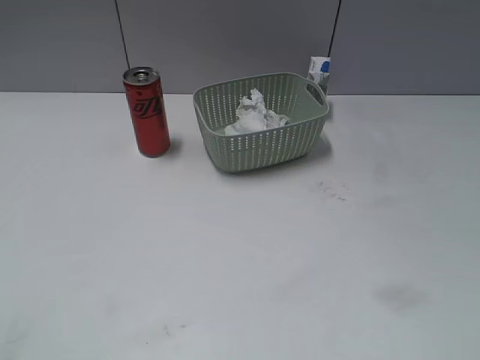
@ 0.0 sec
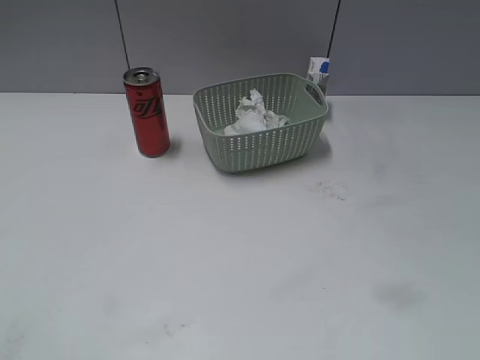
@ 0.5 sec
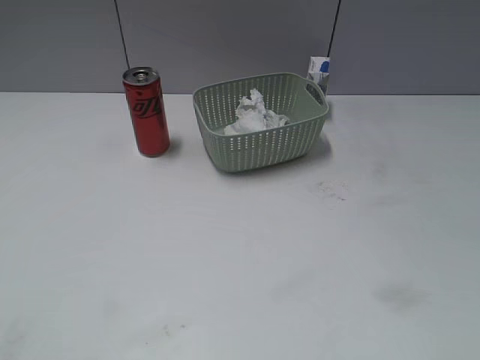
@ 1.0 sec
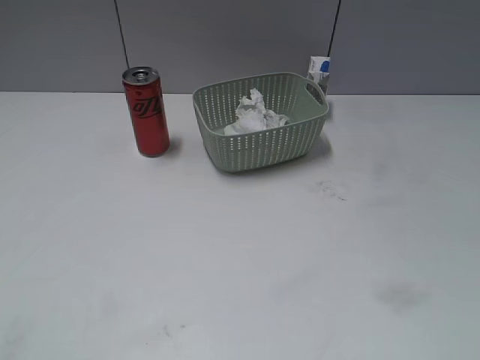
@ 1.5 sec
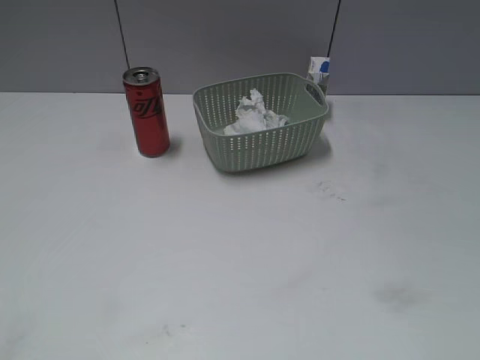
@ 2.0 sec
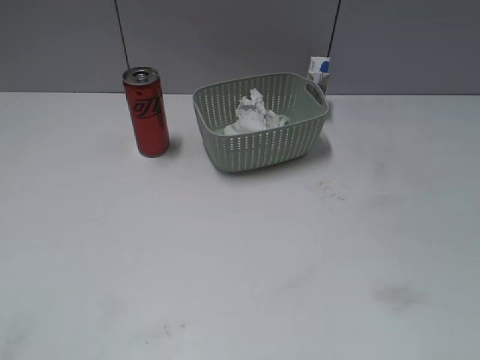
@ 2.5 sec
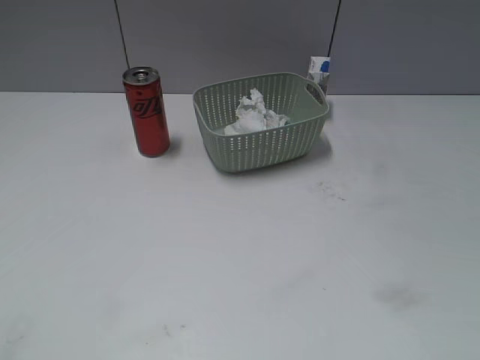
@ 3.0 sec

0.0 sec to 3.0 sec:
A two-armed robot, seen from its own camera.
0.0 sec to 3.0 sec: Neither gripper changes place.
